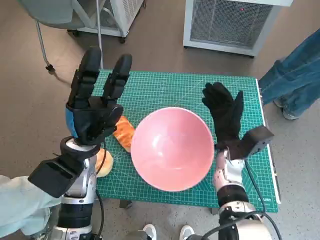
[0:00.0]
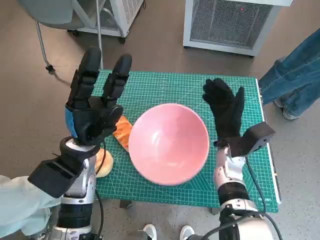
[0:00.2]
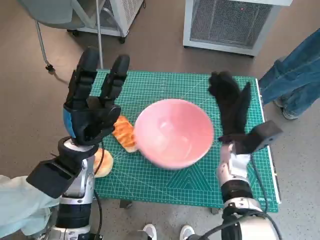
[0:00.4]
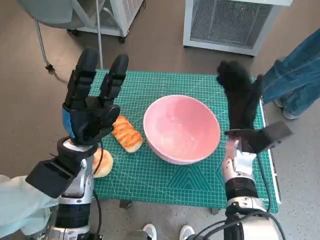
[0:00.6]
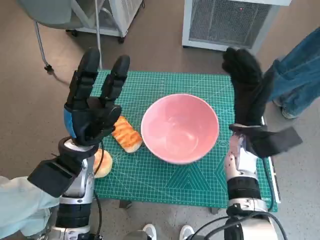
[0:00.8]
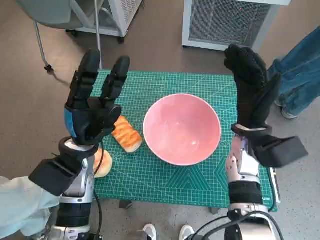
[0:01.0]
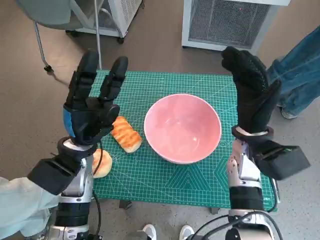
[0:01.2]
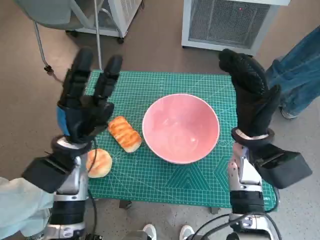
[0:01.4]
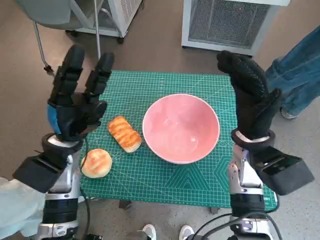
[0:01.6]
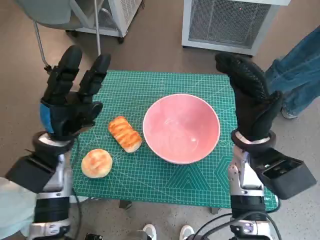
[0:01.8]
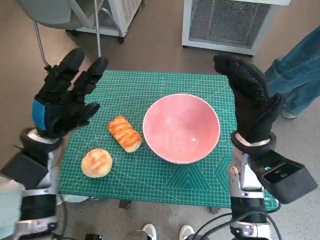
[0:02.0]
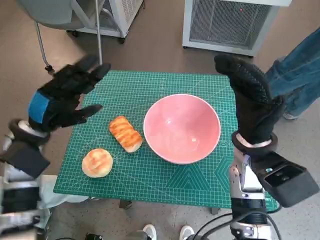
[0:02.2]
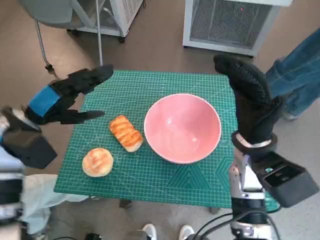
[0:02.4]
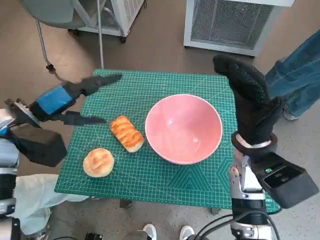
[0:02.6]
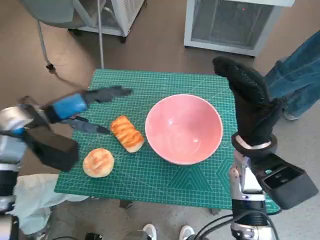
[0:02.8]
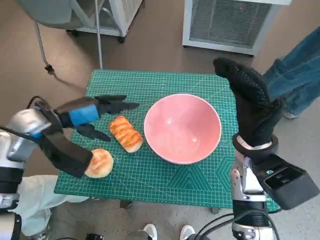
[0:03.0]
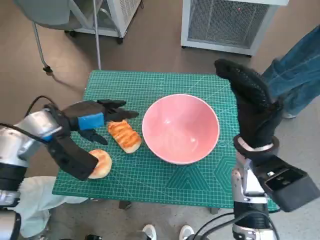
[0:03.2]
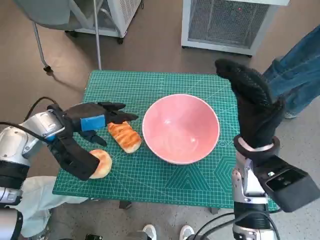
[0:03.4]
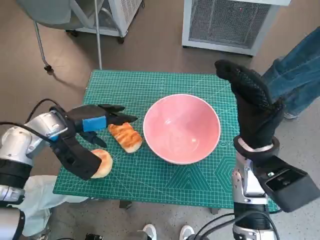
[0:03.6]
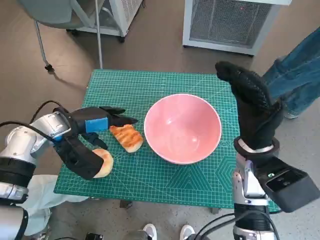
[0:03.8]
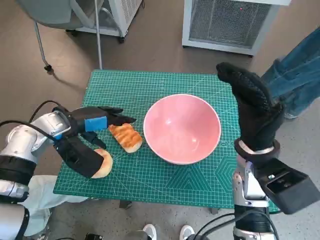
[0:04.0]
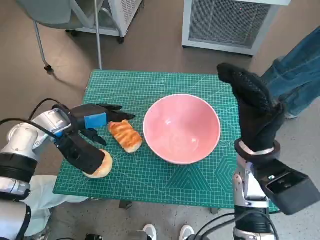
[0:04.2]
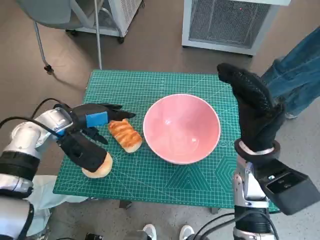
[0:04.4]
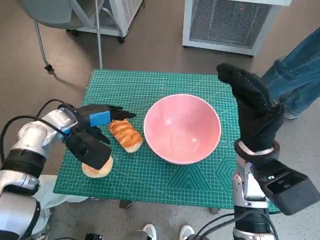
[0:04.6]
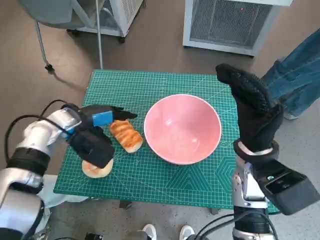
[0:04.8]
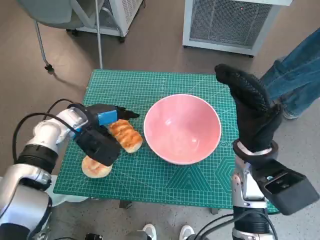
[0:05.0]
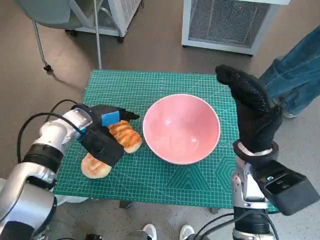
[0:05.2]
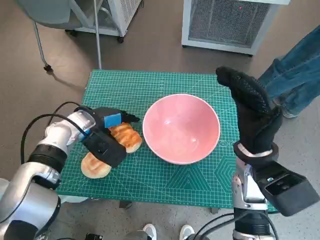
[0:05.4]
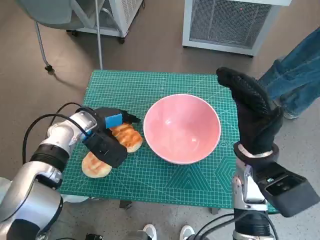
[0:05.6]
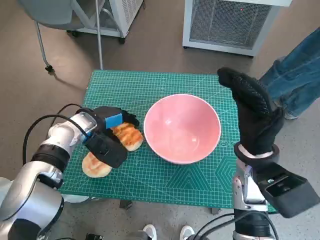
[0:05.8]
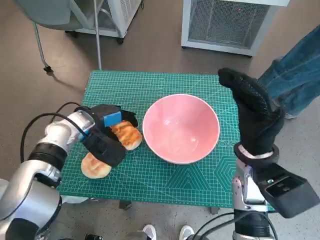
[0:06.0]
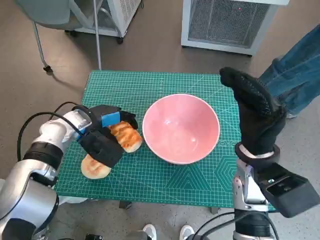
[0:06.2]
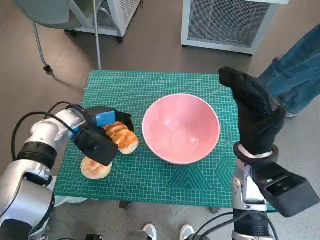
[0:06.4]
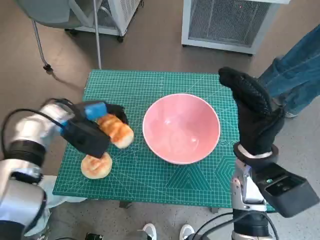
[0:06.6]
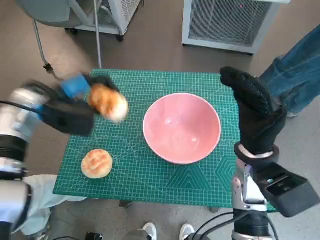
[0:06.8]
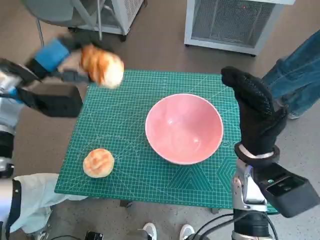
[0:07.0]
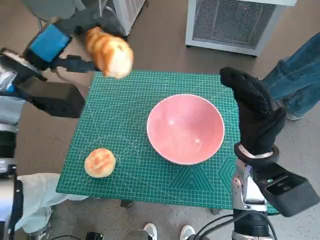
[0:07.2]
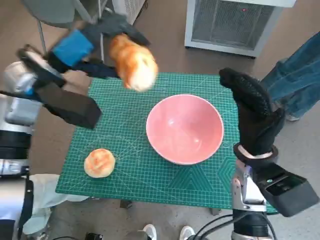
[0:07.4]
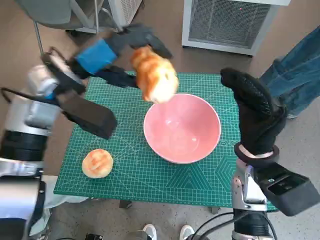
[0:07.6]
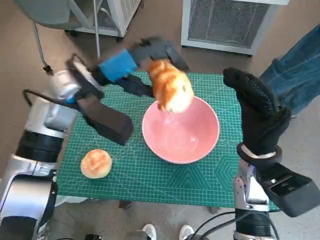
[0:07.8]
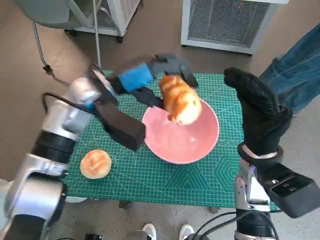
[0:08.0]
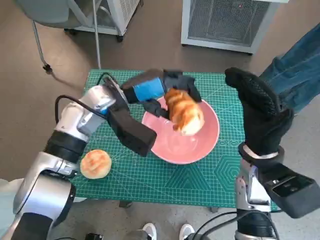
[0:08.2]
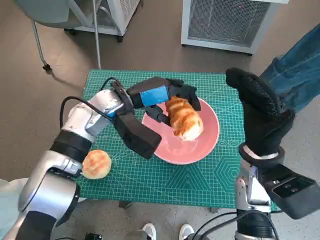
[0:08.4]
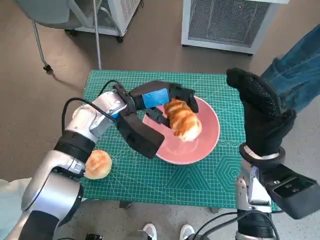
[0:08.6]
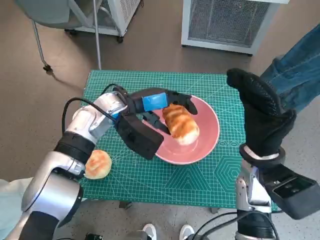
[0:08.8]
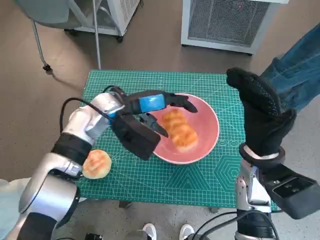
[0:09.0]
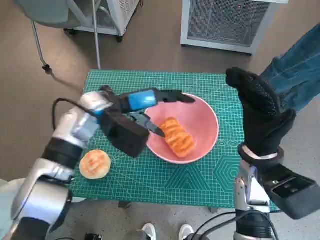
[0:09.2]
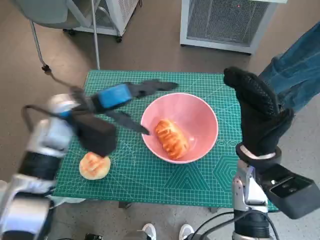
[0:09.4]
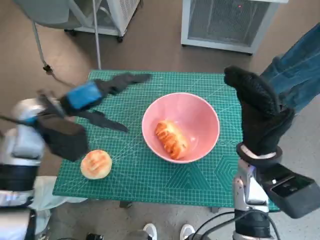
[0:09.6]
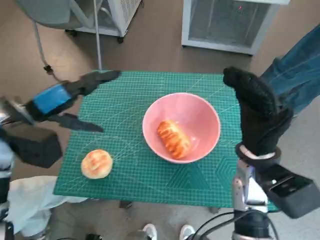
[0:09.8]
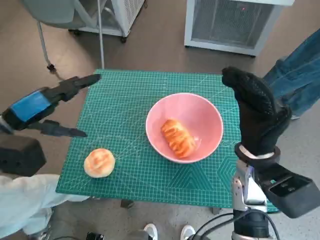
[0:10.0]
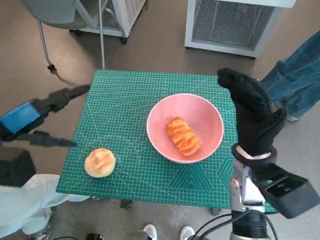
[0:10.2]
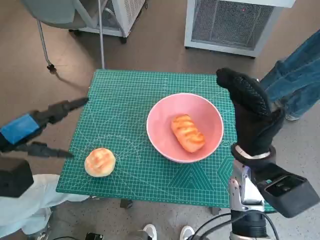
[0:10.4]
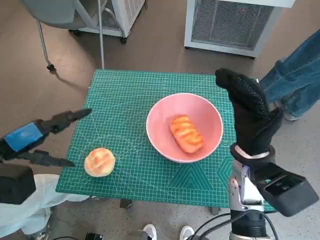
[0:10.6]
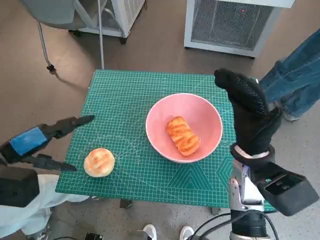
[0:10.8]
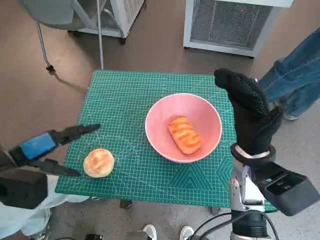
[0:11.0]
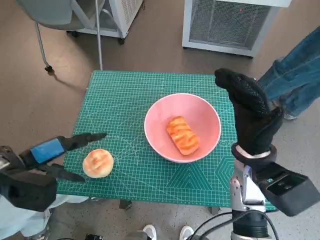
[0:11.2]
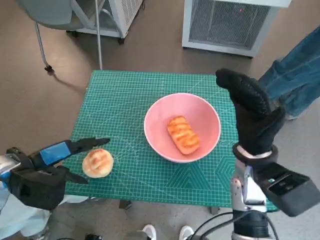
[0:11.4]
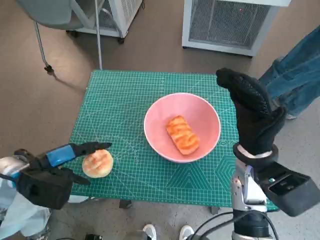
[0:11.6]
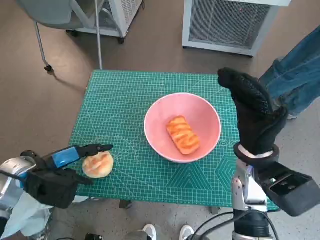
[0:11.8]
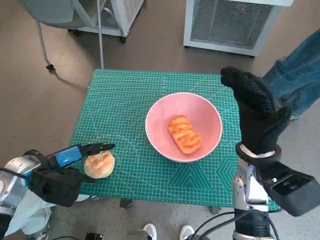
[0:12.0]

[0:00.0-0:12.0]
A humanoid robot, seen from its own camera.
Task of the whole recording: Push the bowl to the center of the table and put the bread into the bowl.
Step, 0.2 to 6.0 s: Grasp the long bread with left hand.
Step, 6.2 to 9.0 s: Place the long bread in pink bowl with left hand.
0.0 to 1.6 s: The right hand shifts approximately 10 cm upward.
1.6 to 3.0 s: The left hand is displaced upward by about 5 cm.
3.0 to 4.4 s: The left hand shifts by some 5 cm.
4.4 to 6.0 s: The left hand shifts by roughly 5 cm.
6.0 to 7.6 s: The left hand goes roughly 15 cm upward.
7.6 to 9.0 s: The left hand travels downward and to the right by roughly 10 cm.
9.0 to 10.4 s: The left hand shifts some 25 cm to the left and backward.
10.4 to 12.0 s: The left hand shifts some 10 cm downward.

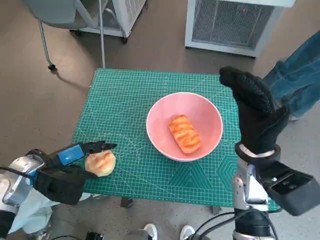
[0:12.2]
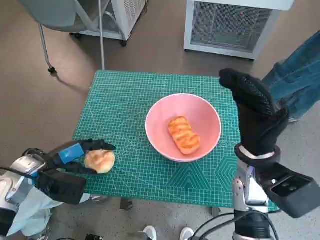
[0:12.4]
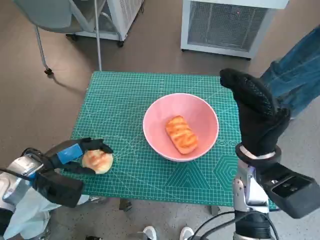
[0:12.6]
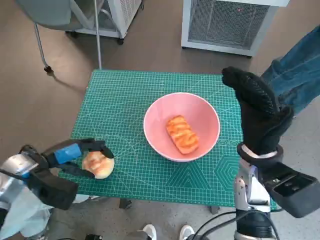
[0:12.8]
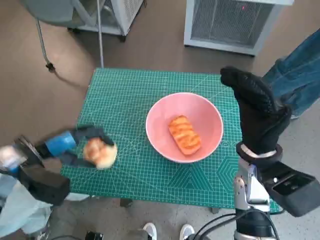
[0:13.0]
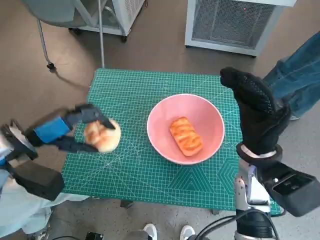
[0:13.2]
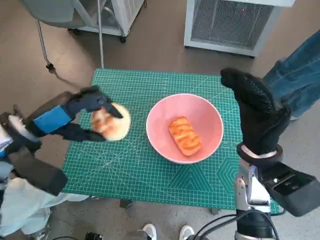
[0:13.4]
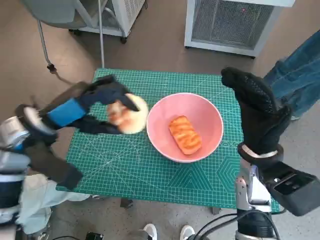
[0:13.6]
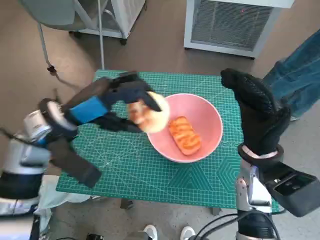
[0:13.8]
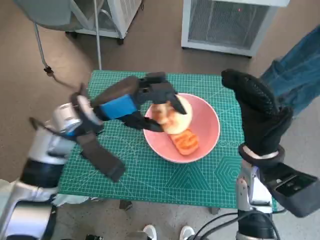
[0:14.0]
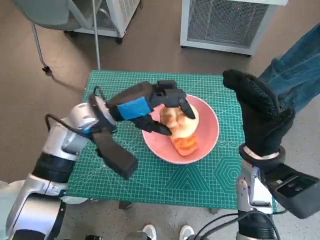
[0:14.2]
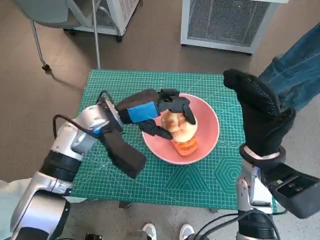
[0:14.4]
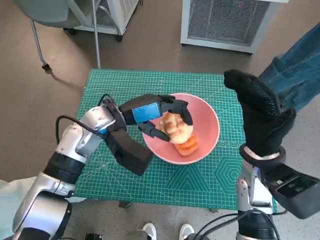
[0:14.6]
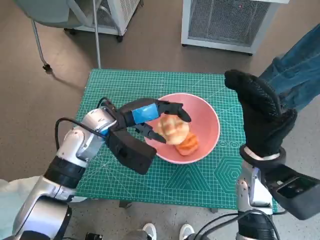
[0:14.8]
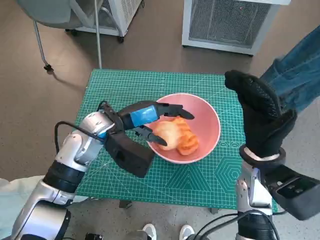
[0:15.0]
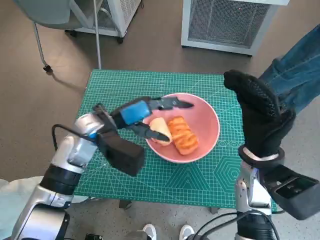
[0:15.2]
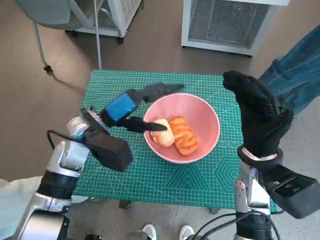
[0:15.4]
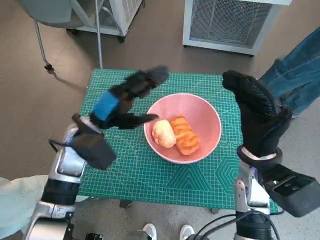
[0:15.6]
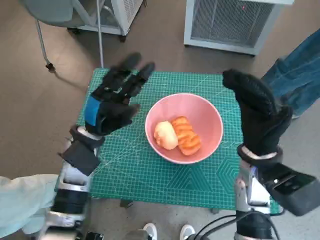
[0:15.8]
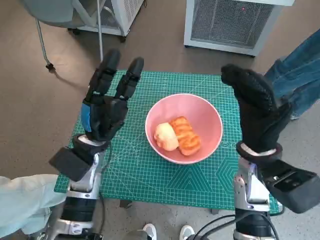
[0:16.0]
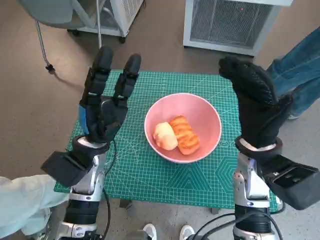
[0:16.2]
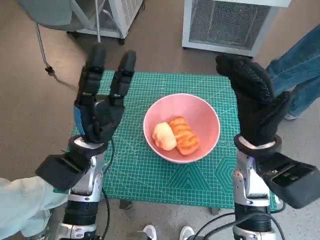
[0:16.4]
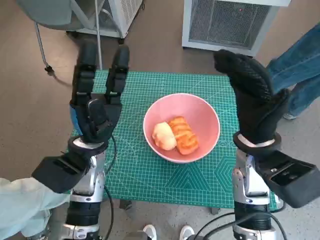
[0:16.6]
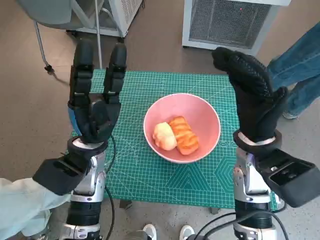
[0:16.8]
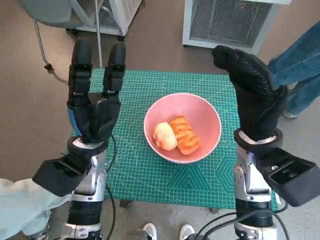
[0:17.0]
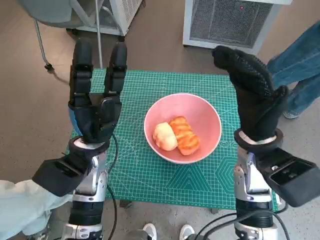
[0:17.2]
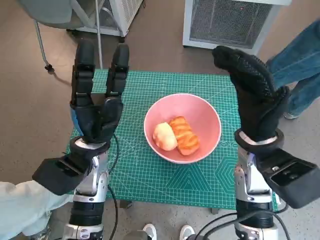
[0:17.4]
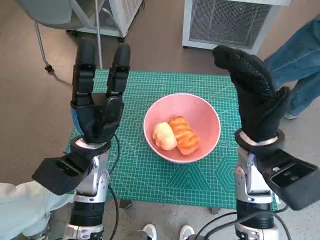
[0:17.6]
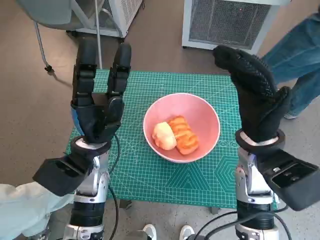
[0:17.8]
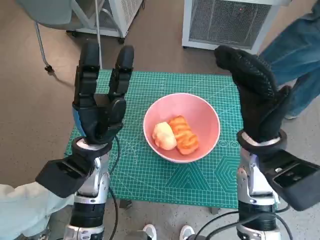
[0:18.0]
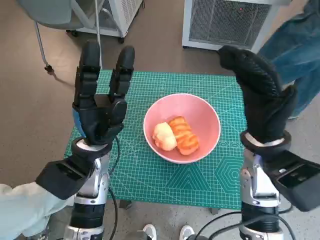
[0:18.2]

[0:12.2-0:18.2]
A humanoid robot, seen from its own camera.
Task of the whole recording: Push the bowl to the center of the table and put the bread into the bowl.
Step, 12.6 to 15.4 s: Place the round bread in pink bowl with left hand.
12.2 to 13.8 s: The left hand shifts roughly 15 cm upward and to the right.
13.8 to 15.2 s: The left hand goes approximately 10 cm to the right and downward.
15.2 to 16.6 s: The left hand moves roughly 5 cm.
16.6 to 18.2 s: The hands move only a little.

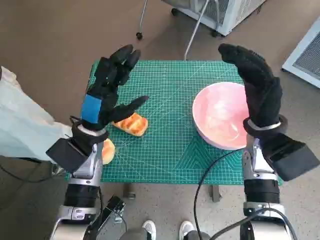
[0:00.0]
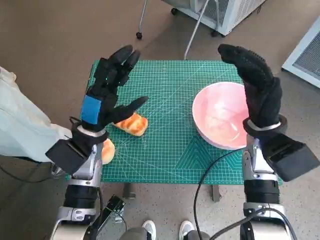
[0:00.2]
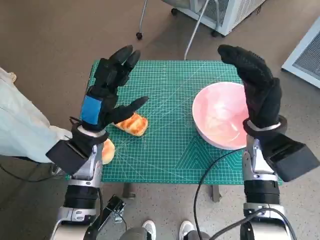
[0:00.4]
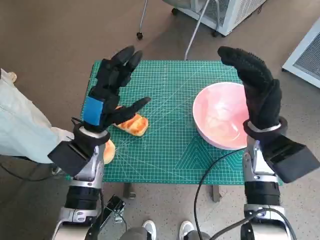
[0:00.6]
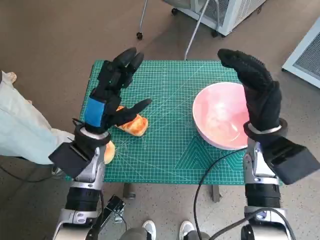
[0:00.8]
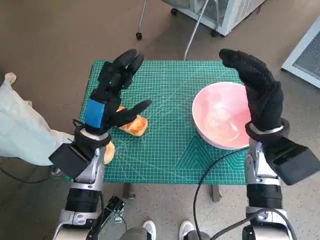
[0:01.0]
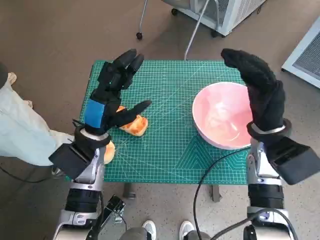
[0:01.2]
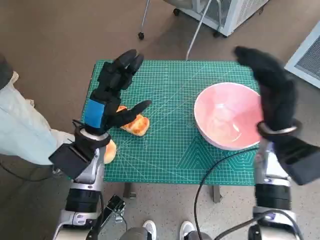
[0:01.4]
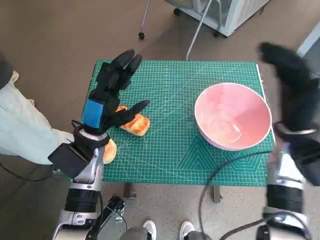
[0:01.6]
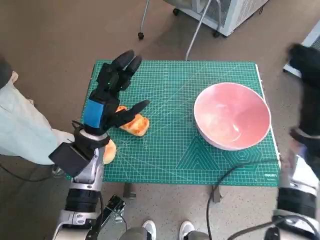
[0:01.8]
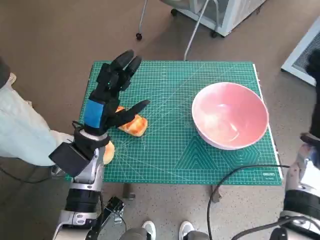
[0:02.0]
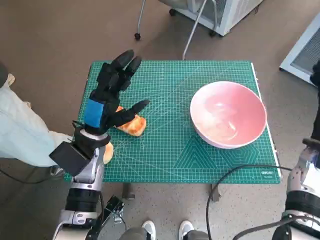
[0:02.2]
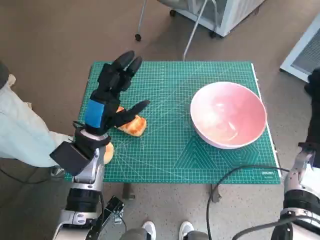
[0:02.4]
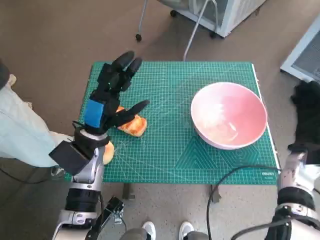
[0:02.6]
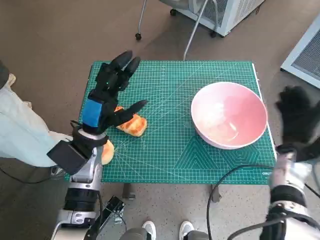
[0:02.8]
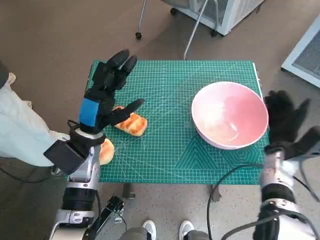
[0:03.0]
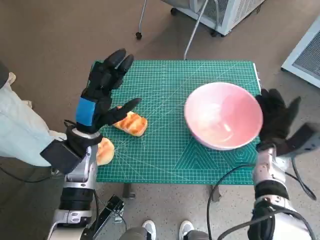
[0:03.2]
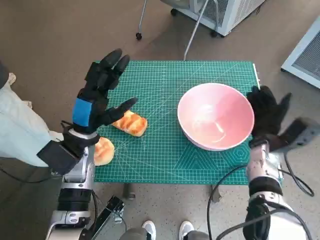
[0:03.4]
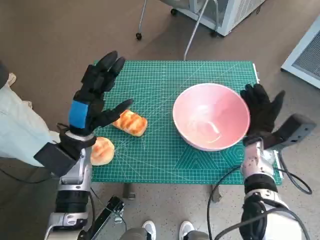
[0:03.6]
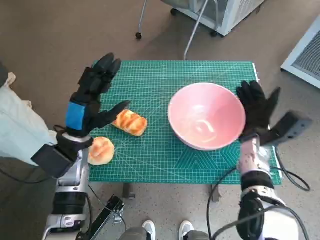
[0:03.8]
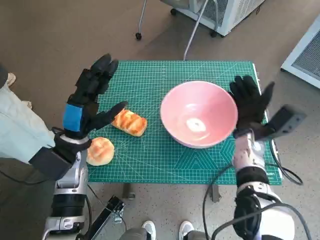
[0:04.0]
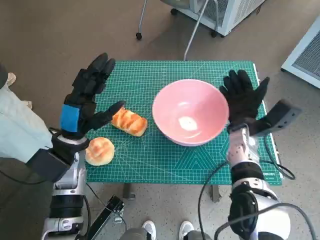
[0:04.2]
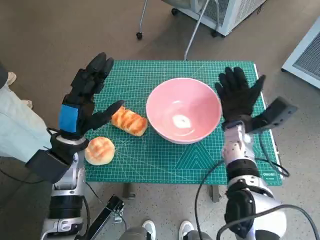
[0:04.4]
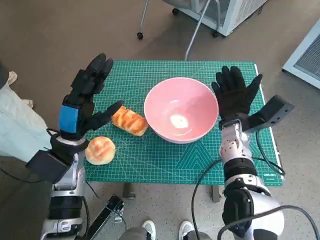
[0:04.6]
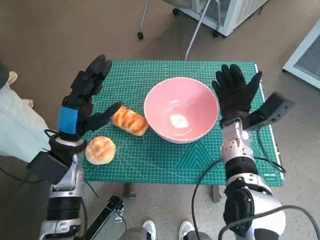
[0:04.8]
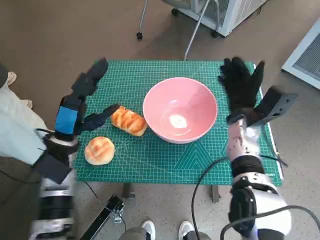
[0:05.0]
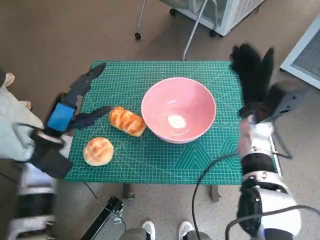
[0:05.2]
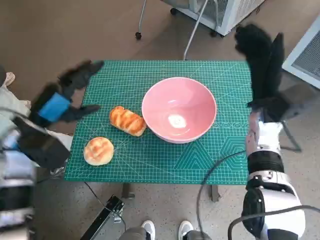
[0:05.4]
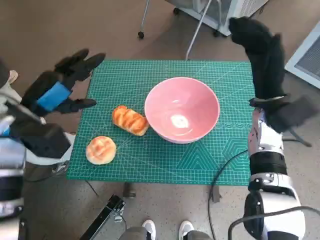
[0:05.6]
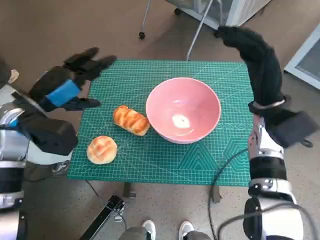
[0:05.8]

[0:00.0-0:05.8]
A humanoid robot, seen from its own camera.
Task of the whole recording: Push the bowl to the center of the table and put the bread into the bowl.
Step, 0.0 to 4.8 s: Move the pink bowl to the center of table with right hand.
1.4 to 2.8 s: The right hand moves downward and to the right, about 10 cm.
2.8 to 4.4 s: The right hand is displaced to the left by about 10 cm.
4.4 to 5.8 s: The right hand heads upward, covering roughly 10 cm. Meanwhile the left hand travels upward and to the left by roughly 10 cm.
